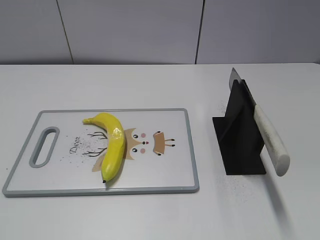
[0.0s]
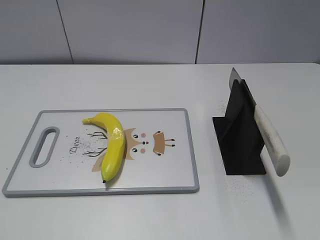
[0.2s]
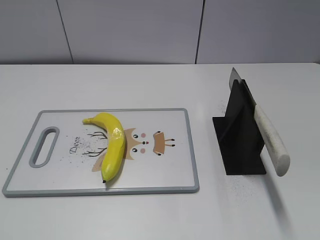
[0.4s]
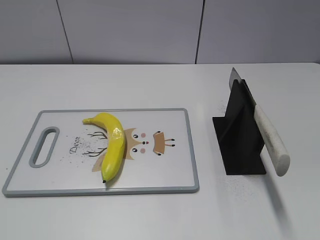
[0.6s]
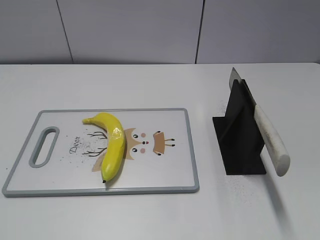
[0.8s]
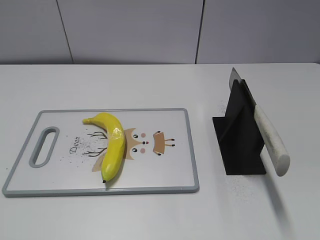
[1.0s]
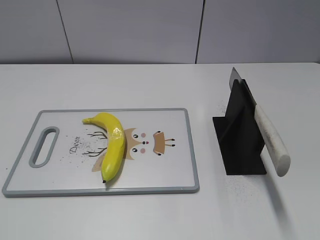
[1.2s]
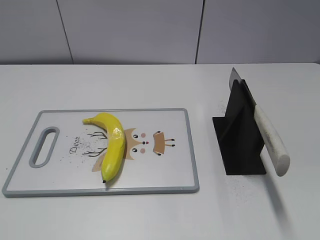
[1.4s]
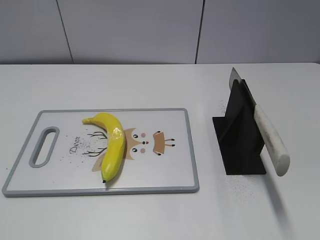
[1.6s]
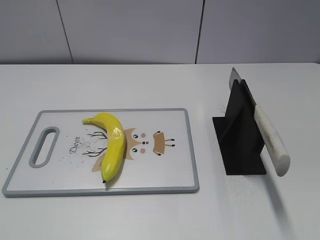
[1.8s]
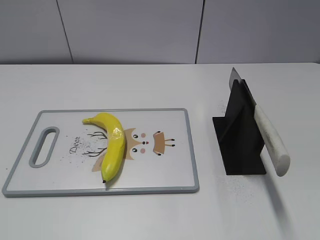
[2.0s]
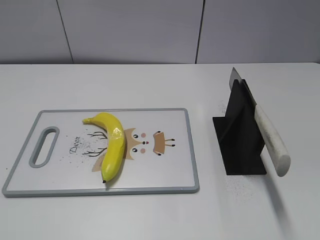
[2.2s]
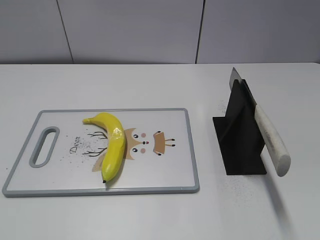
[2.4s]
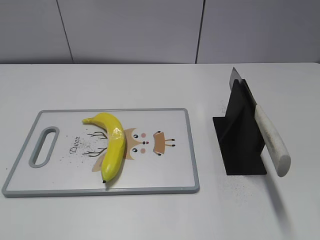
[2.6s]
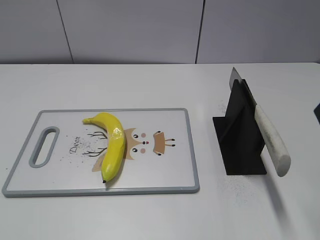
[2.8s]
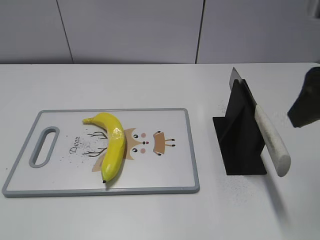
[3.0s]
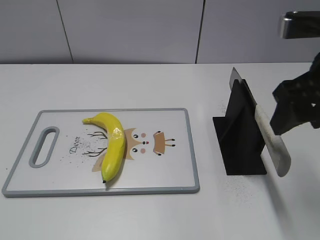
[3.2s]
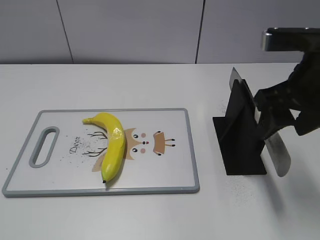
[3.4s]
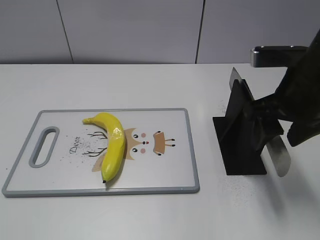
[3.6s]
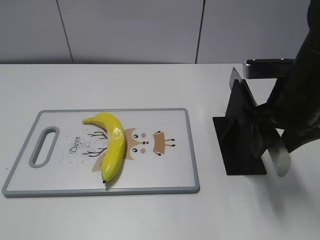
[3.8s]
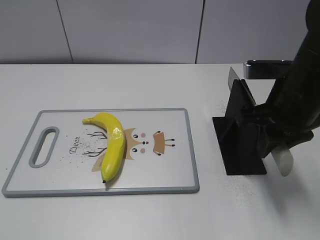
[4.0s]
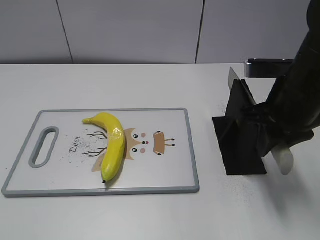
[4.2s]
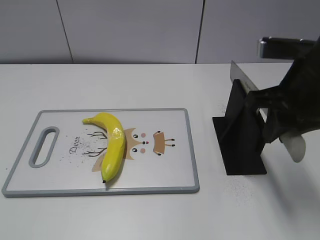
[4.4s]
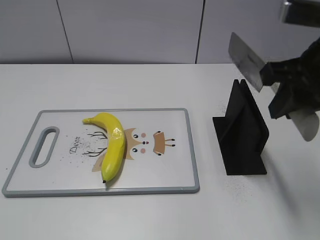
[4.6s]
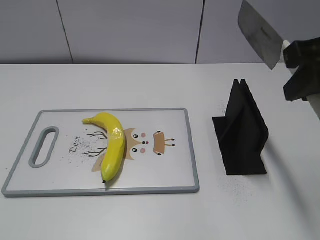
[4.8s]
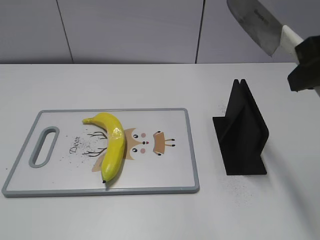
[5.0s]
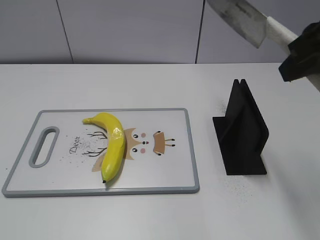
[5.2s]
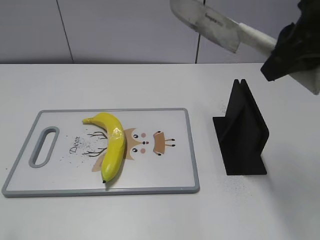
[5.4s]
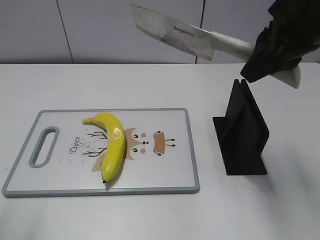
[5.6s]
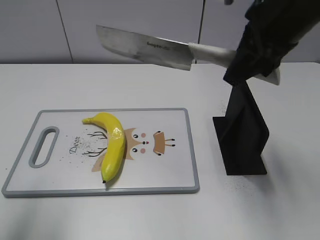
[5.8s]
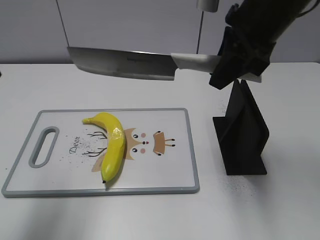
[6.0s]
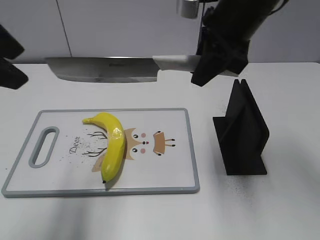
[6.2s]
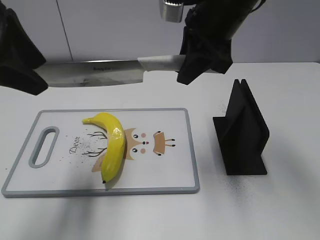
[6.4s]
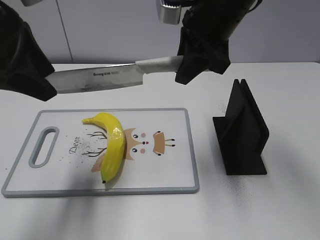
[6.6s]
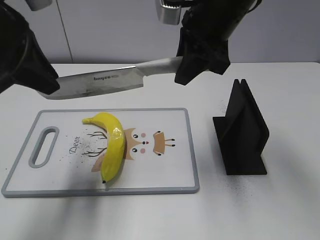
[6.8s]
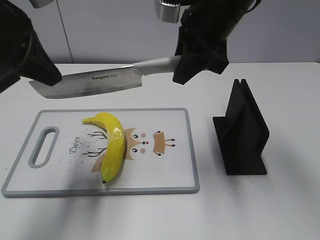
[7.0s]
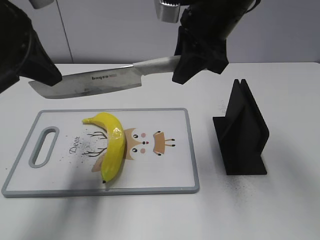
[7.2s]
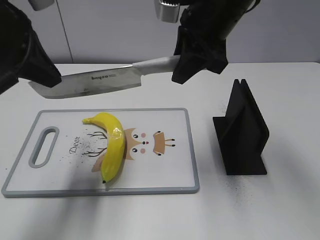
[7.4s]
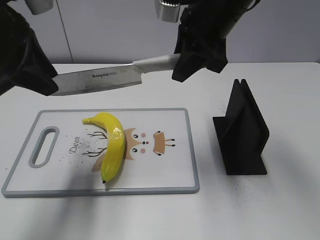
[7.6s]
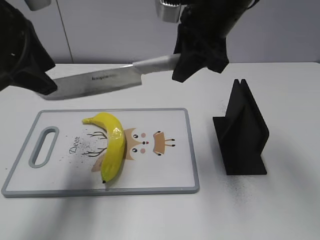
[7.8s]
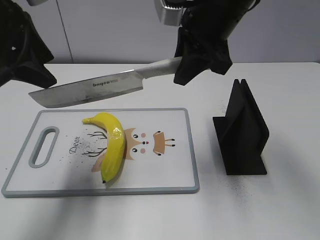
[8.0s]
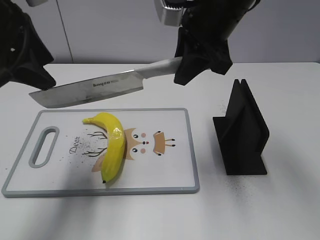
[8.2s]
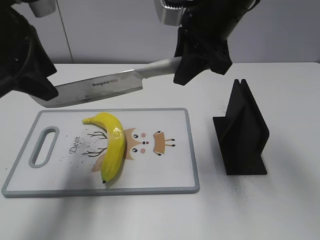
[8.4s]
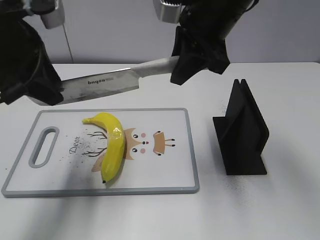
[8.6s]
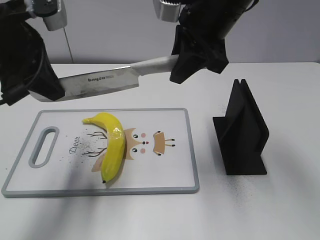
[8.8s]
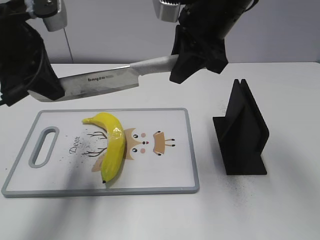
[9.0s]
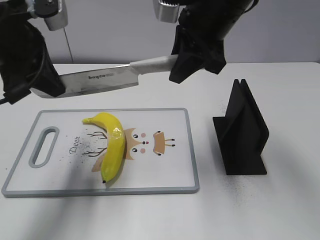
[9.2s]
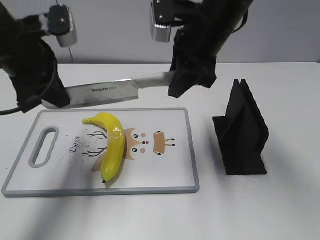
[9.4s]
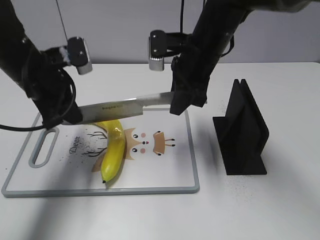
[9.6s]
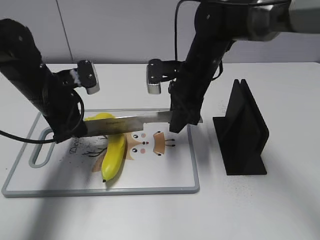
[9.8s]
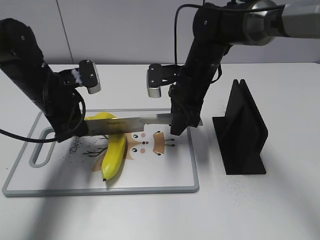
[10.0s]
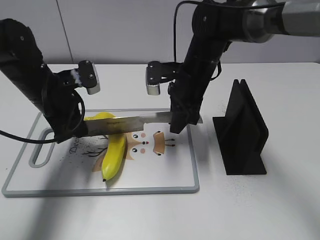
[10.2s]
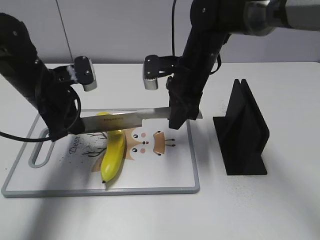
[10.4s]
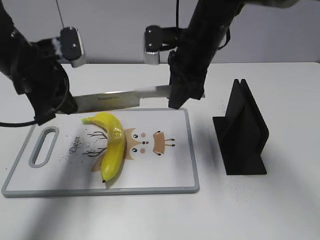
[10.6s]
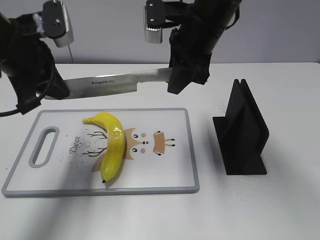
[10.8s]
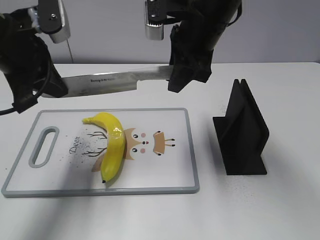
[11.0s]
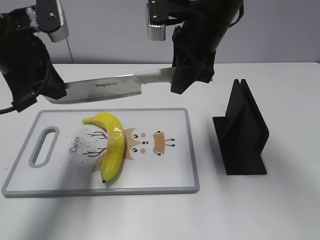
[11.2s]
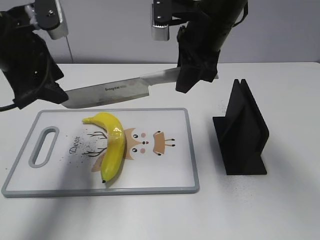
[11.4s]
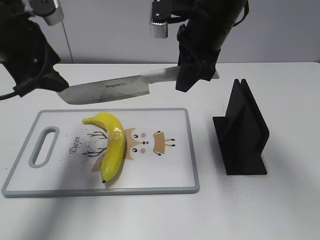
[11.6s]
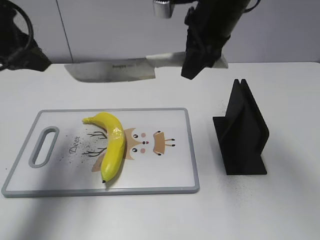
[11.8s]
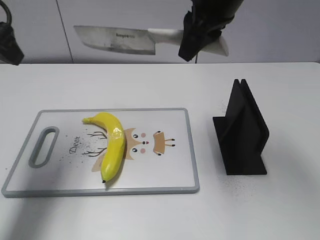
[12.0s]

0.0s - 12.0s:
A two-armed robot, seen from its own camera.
Task of the whole recording: cut plastic banana.
Step, 0.0s - 5.0s: Grab the knife handle with your right hand.
Step, 5.2s - 8.6s: Lift the knife with your right hand.
1.6s - 3.0s: The right gripper goes roughly 20 cm forward.
3.0s - 4.4s: The right gripper moves downward, about 5 cm, and closes.
4.4s - 6.0s: The right gripper travels upward, forward and to the left by approximately 10 cm. The left gripper shifts about 20 cm forward and upward.
6.0s - 7.6s: The right gripper shifts about 5 cm to the left. The left gripper shifts some 10 cm forward and to the right, and closes its fingers.
7.6s - 9.0s: The left gripper closes.
9.0s - 10.4s: Both grippers travel together downward, approximately 15 cm.
10.4s - 12.0s: The right gripper shifts roughly 15 cm upward; the left gripper is displaced upward and to the left by some 15 cm, and opens up.

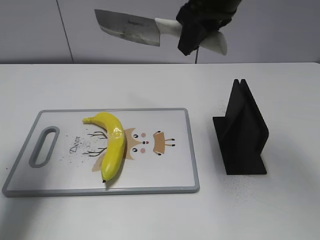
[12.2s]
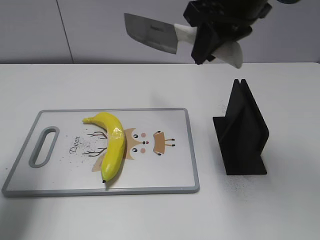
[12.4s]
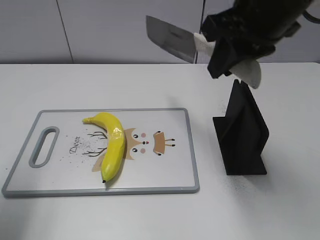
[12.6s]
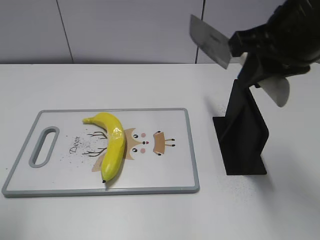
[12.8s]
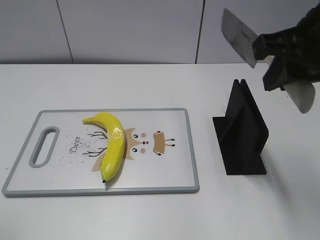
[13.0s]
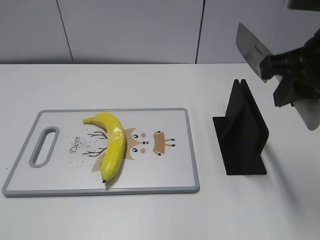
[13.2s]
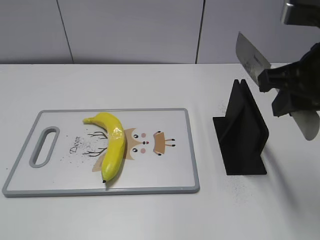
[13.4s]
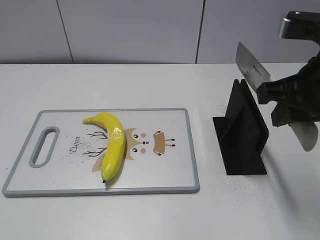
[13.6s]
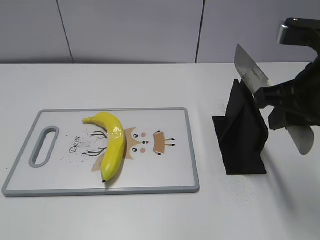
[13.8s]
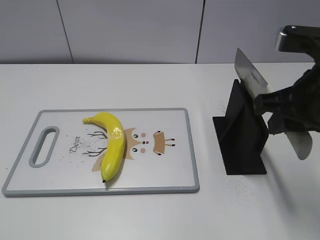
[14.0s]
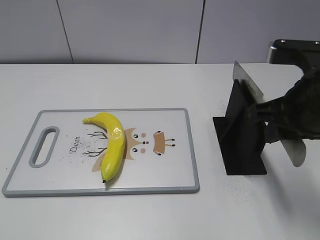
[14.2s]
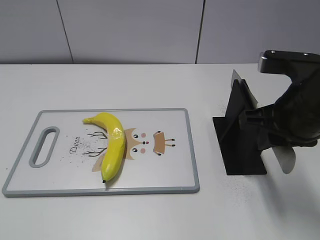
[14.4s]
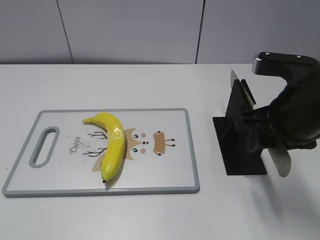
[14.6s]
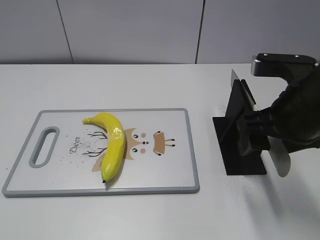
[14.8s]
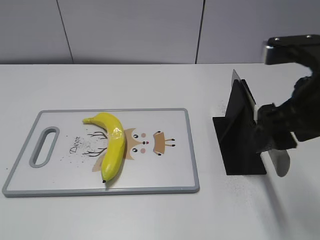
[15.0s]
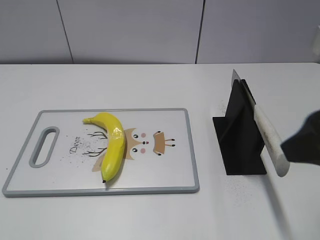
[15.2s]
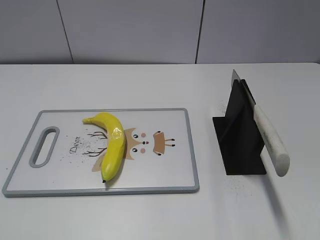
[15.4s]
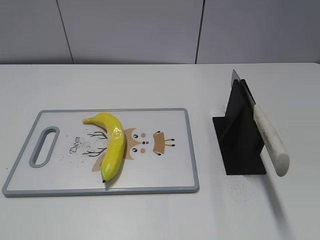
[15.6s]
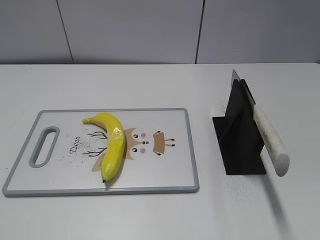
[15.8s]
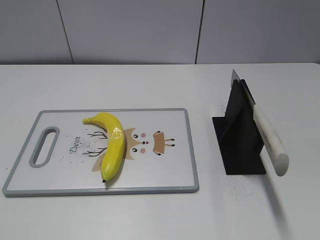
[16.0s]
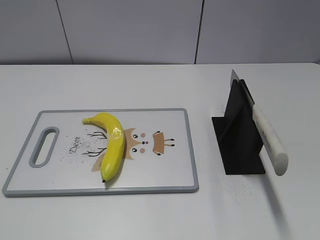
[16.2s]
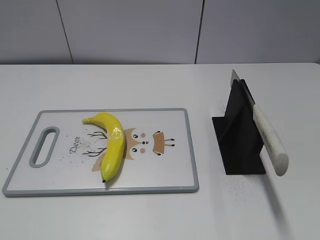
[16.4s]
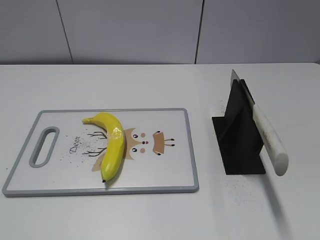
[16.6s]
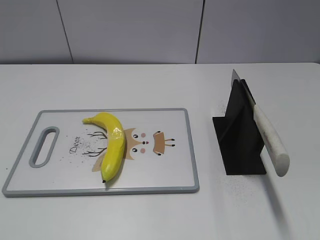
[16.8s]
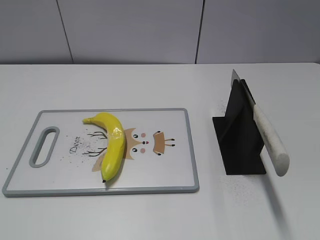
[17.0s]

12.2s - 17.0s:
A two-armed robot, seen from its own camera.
Task of the whole recording: cut plastic banana.
Step, 12.4s - 13.2s: Lift the knife with your right hand.
Step, 13.6s - 17.0s: Place the knife on the storage rack with your right hand.
12.2s - 13.8s: The right gripper is displaced backward, to the right and downward by about 20 cm, while the left gripper heads backward, covering some 30 cm.
13.8s - 15.4s: The right gripper heads backward, covering roughly 10 cm, and opens.
